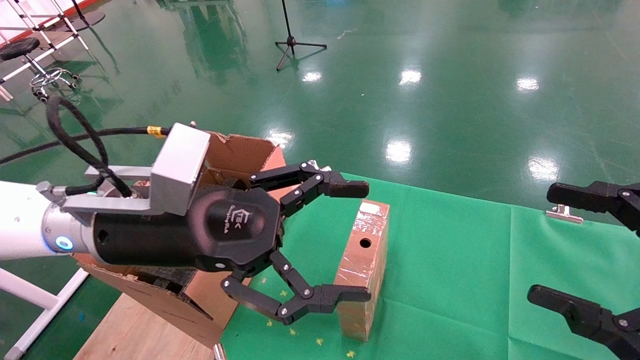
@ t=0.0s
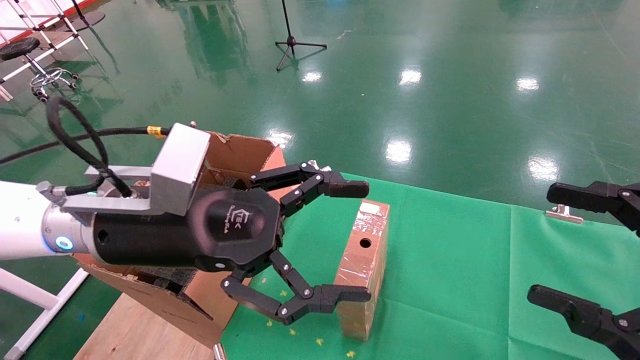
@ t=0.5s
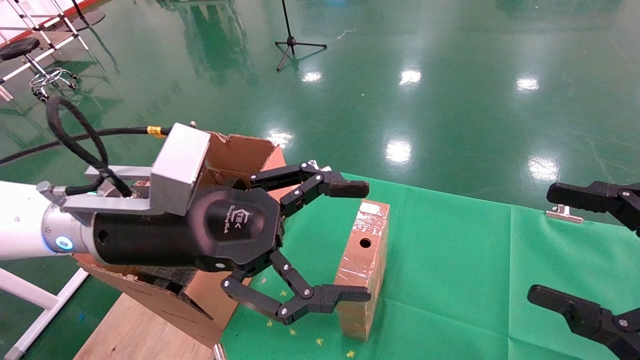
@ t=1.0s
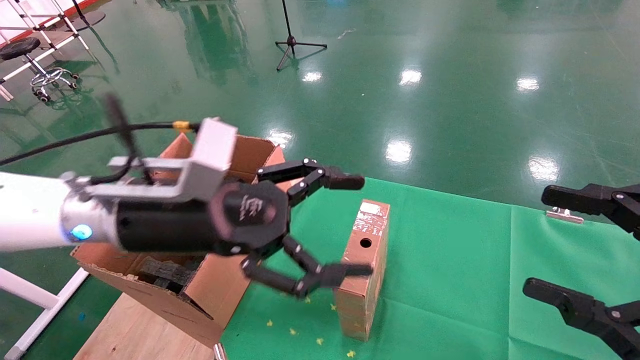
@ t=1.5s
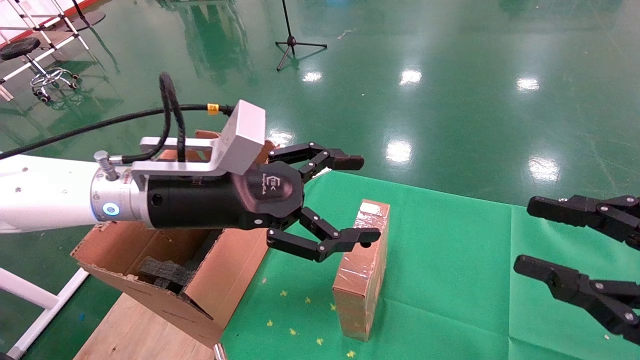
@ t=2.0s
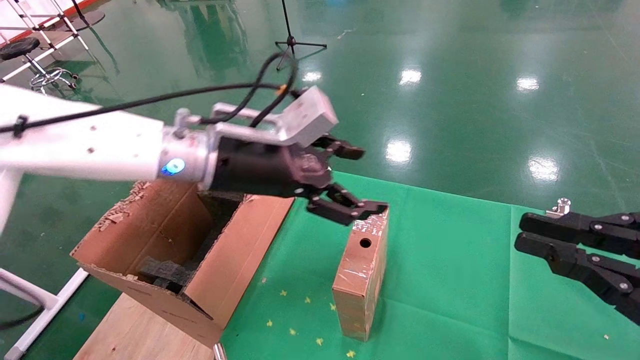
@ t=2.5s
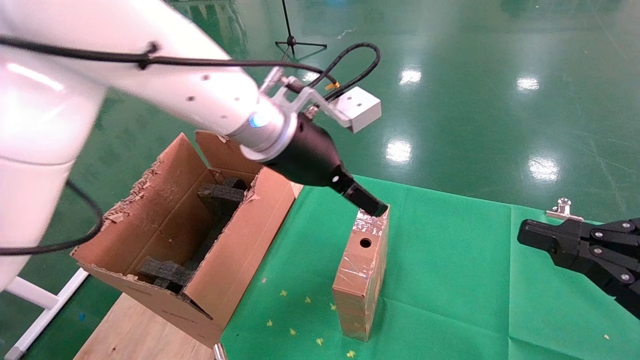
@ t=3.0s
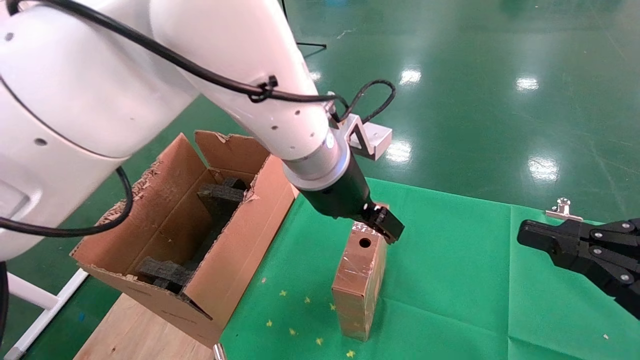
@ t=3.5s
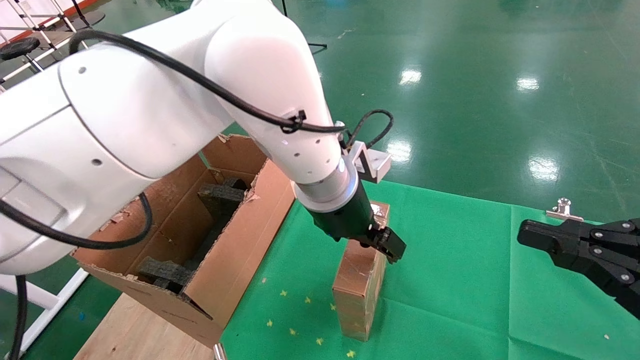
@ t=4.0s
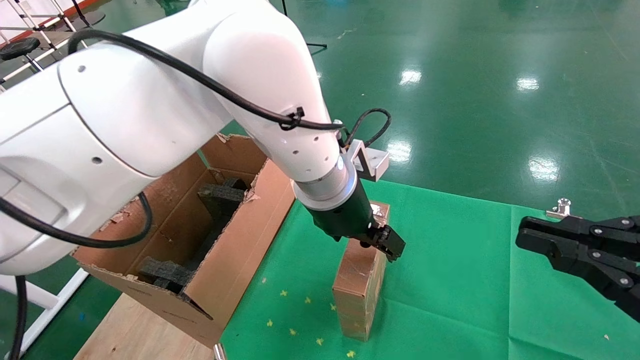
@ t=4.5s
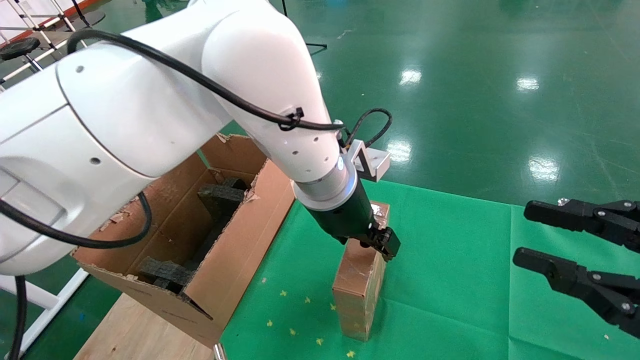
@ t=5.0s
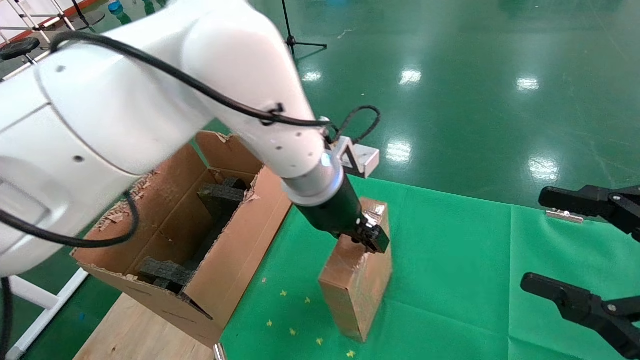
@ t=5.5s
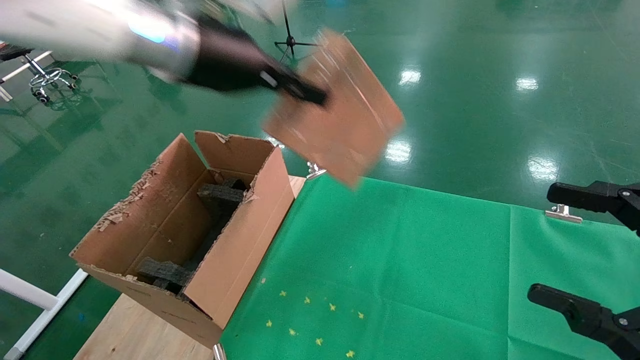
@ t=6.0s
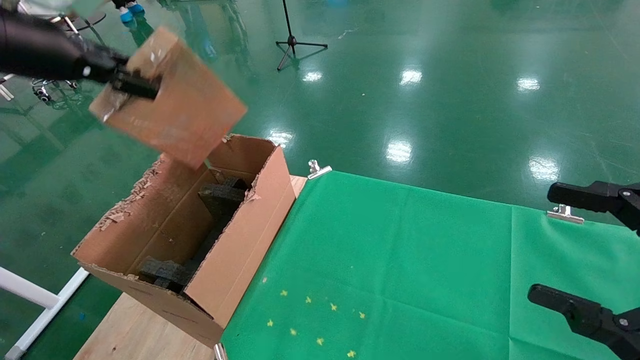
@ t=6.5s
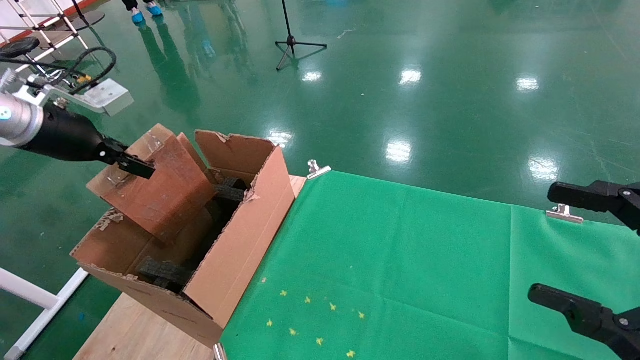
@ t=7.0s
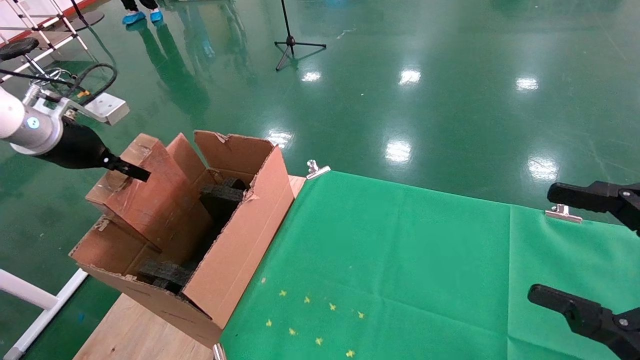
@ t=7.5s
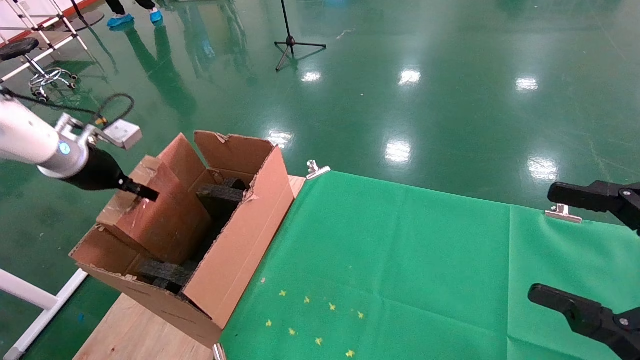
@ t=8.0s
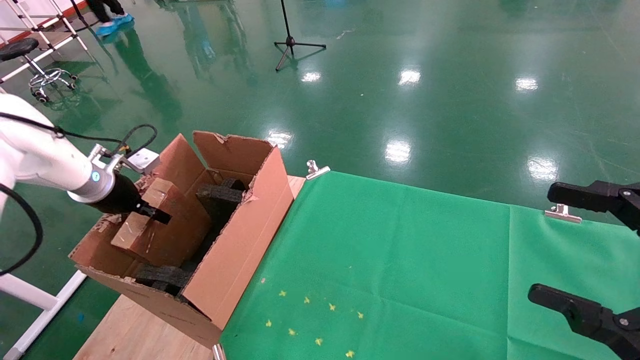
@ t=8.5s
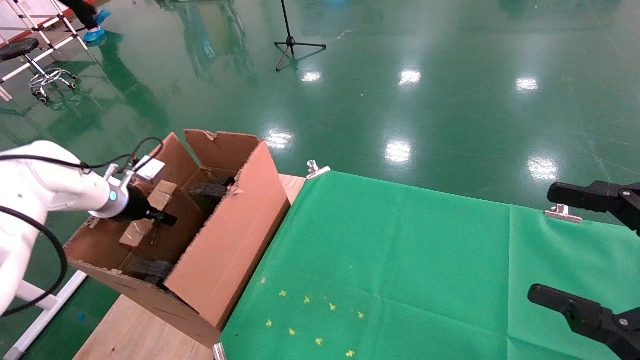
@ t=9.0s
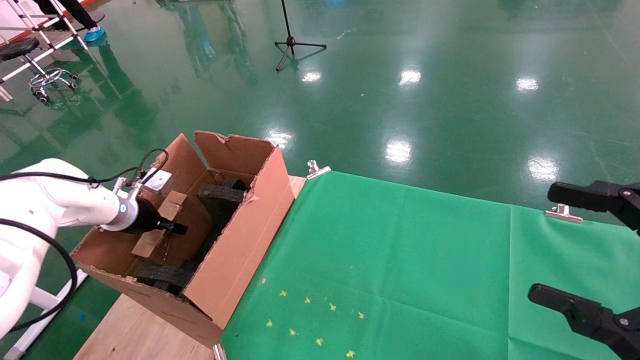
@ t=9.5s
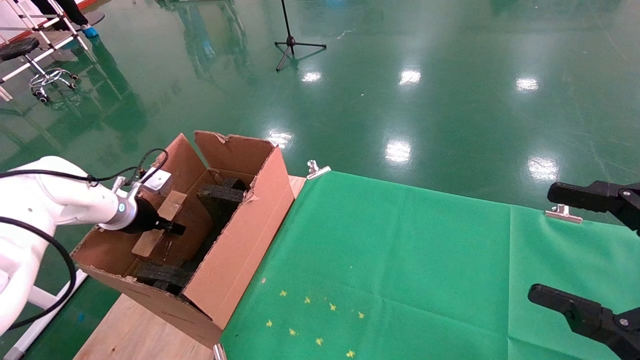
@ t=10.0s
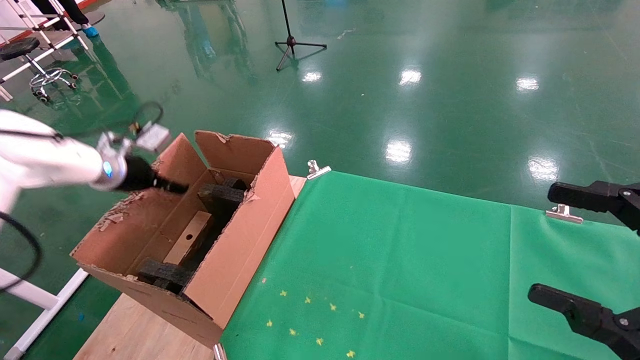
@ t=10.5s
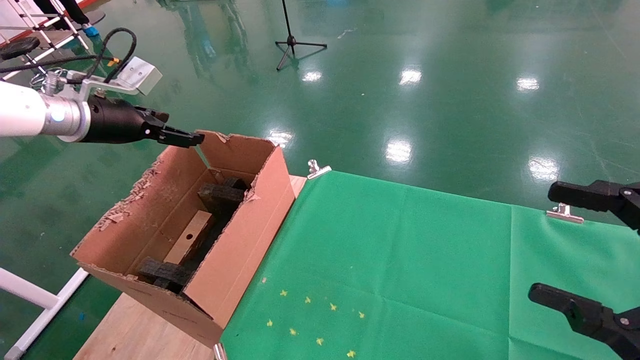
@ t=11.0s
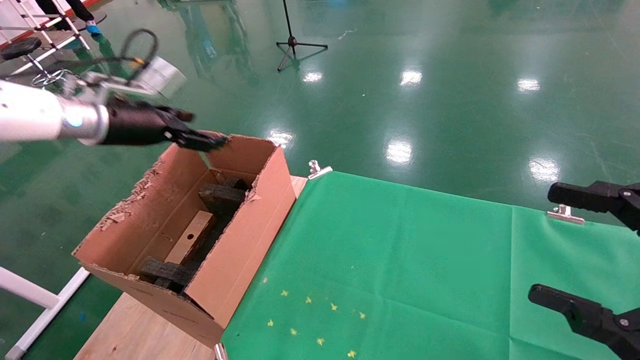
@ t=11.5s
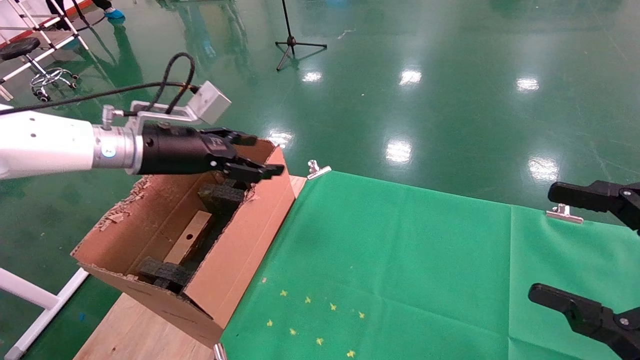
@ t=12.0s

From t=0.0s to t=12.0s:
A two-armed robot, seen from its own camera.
Task of the whole recording: using a robotic arm to pick up a cardboard box and palace it the carton.
Step, from t=1.5s to t=5.0s: Pick up the mouse and the power cord paper box.
Step, from t=5.5s to t=10.5s: Place the mouse and the power cord paper box into the container.
From t=0.0s to t=2.0s: The right gripper closes. Meanwhile the left gripper shifts roughly 5 cm forward.
From t=2.0s to t=4.0s: The left gripper heads to the right and forward, covering roughly 20 cm. The right gripper closes.
From t=4.0s to t=6.0s: The left gripper travels to the left and upward by approximately 25 cm, and closes its fingers; the right gripper opens its fingers.
From t=6.0s to t=8.0s: The left gripper goes about 30 cm to the left and downward.
From t=8.0s to t=10.0s: The left gripper is displaced downward by roughly 10 cm.
From t=10.0s to t=12.0s: The left gripper heads to the right, upward and backward, covering some 20 cm, and opens.

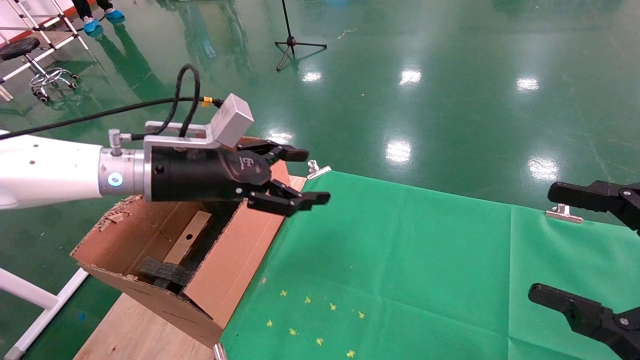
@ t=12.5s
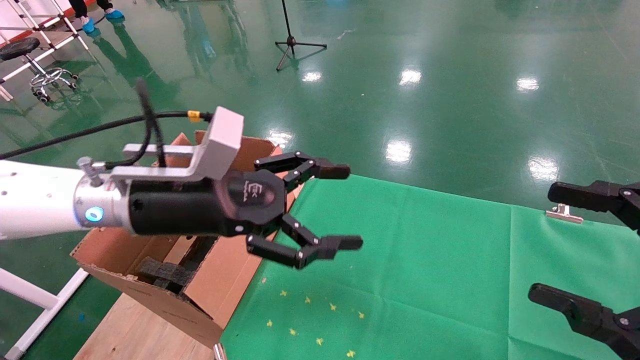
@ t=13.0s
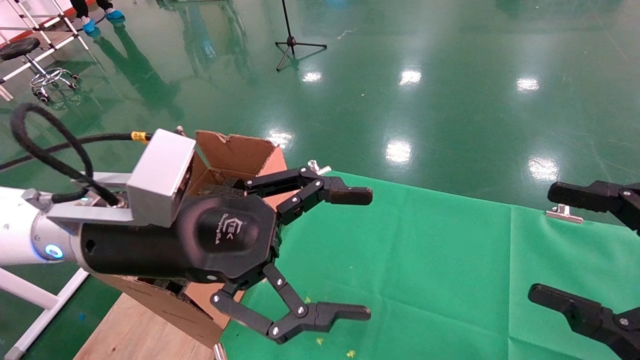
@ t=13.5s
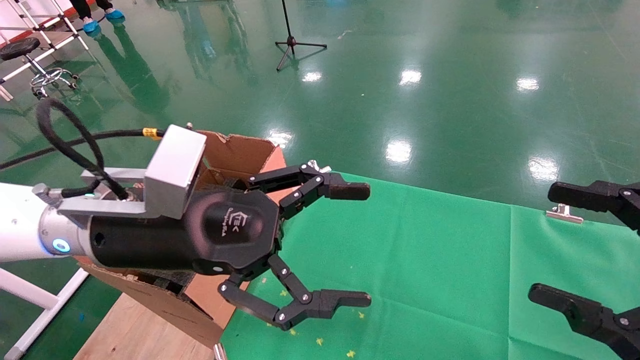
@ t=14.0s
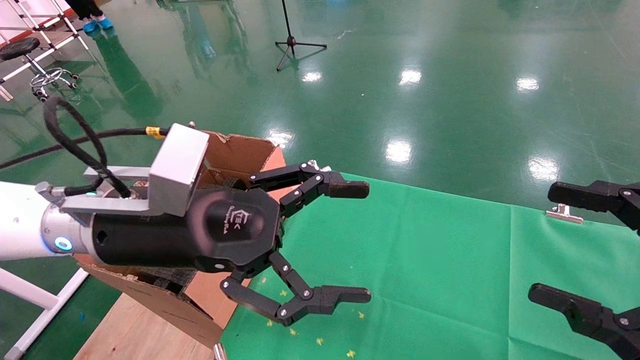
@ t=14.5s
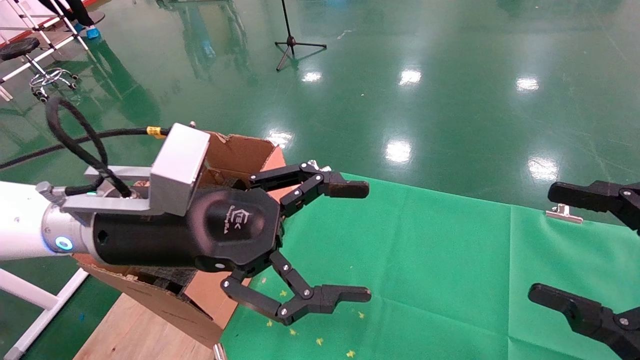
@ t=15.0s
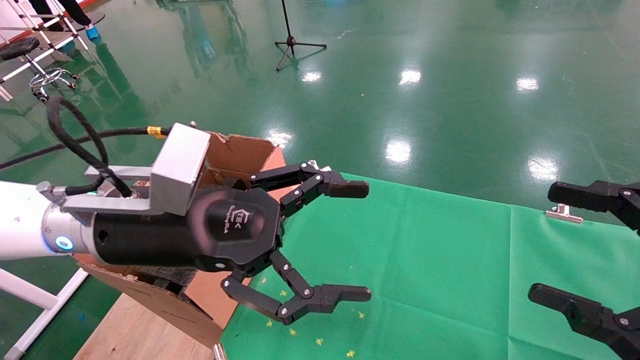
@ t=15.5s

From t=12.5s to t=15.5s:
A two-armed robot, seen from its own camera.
Task of the whole recording: using a robotic arm to pick up a cardboard box and palace it the carton.
From t=12.5s to t=14.0s: The left gripper heads backward and to the right, covering roughly 10 cm.
From t=14.0s to t=15.5s: Both grippers stay put.
